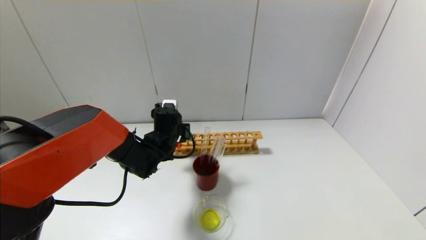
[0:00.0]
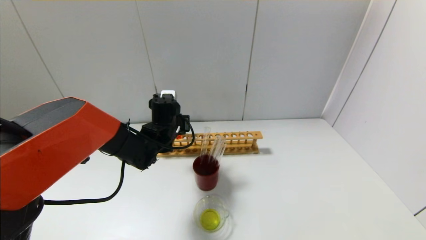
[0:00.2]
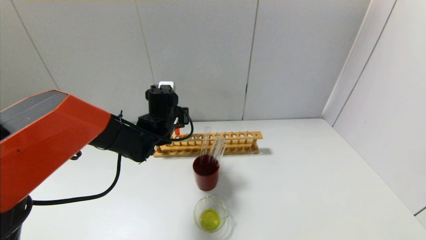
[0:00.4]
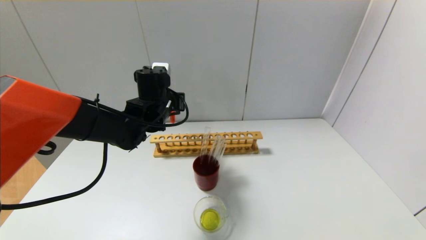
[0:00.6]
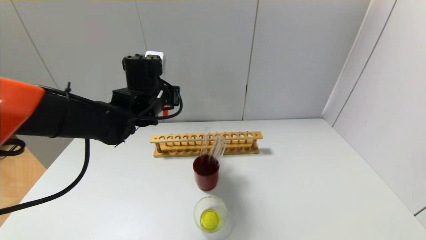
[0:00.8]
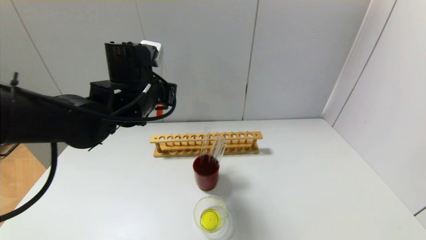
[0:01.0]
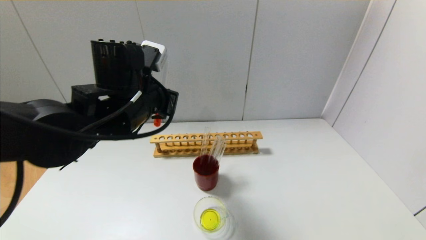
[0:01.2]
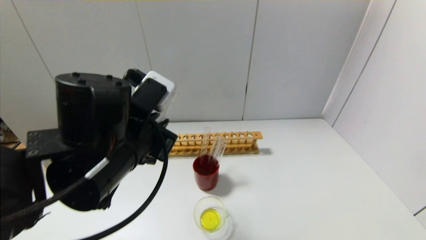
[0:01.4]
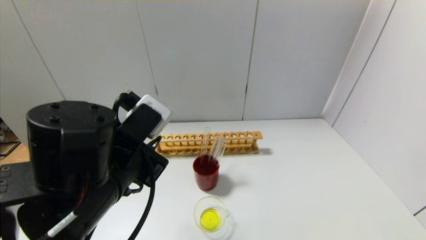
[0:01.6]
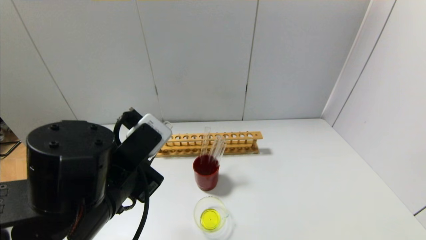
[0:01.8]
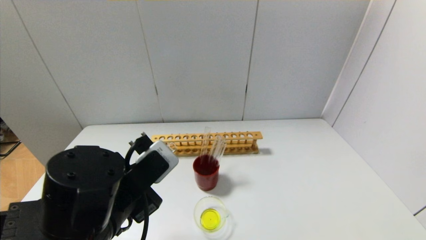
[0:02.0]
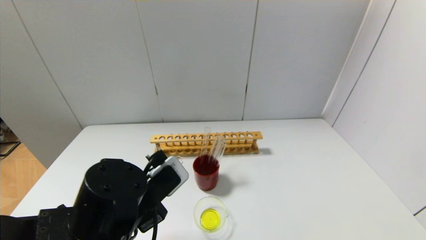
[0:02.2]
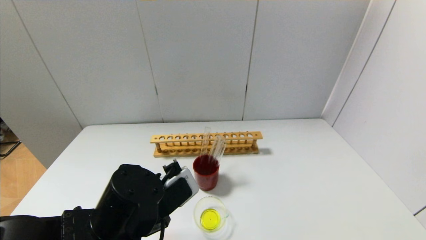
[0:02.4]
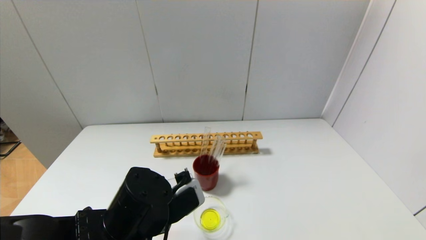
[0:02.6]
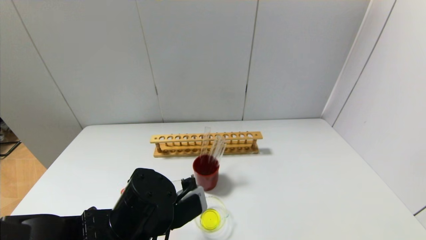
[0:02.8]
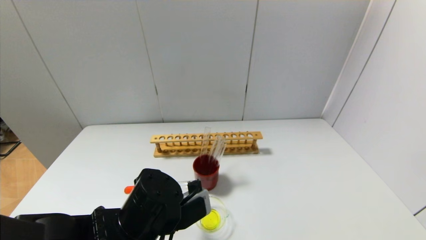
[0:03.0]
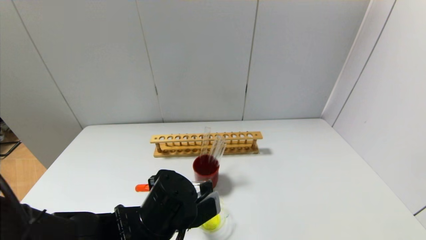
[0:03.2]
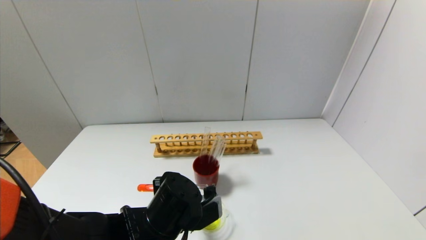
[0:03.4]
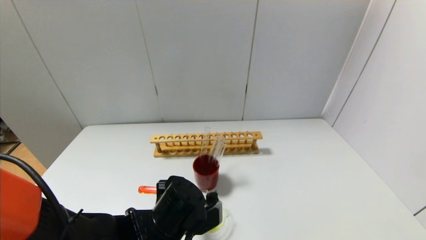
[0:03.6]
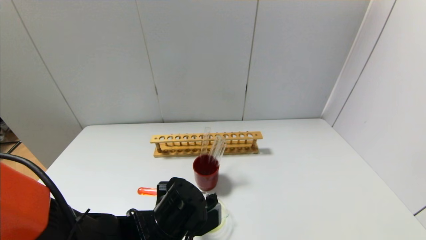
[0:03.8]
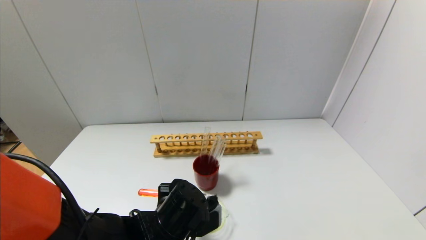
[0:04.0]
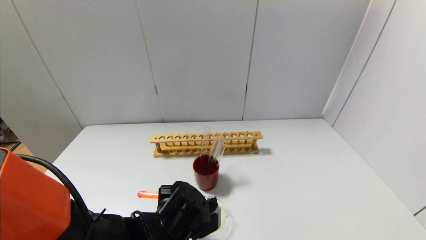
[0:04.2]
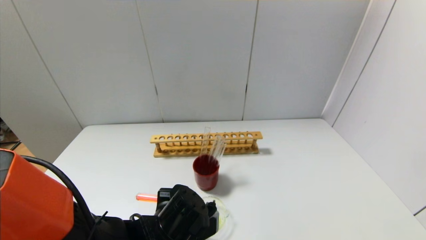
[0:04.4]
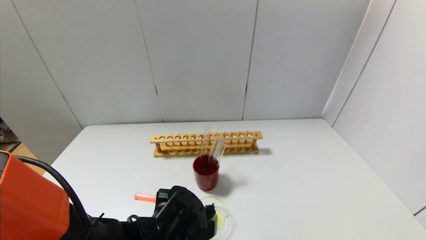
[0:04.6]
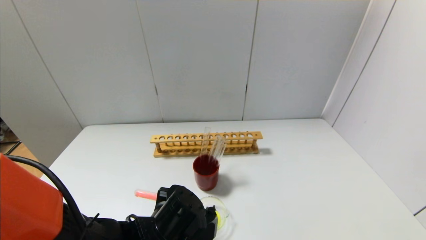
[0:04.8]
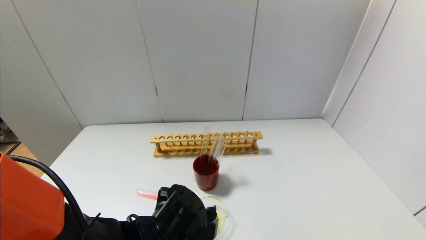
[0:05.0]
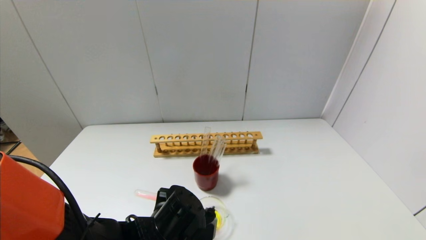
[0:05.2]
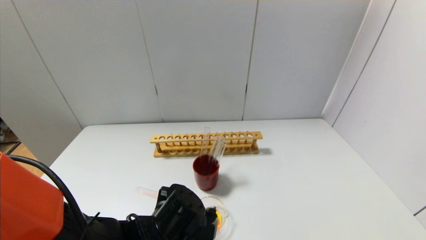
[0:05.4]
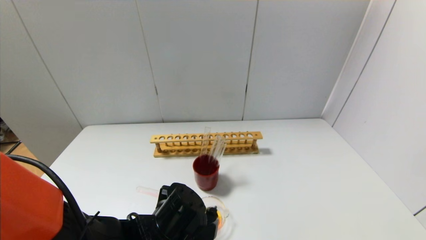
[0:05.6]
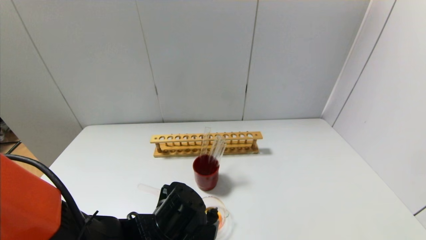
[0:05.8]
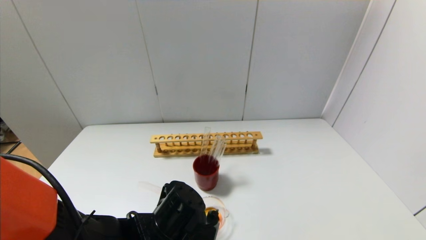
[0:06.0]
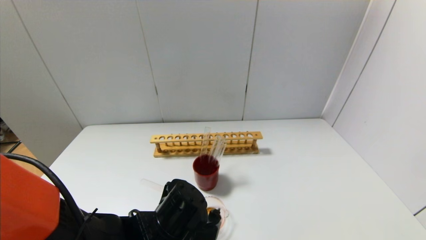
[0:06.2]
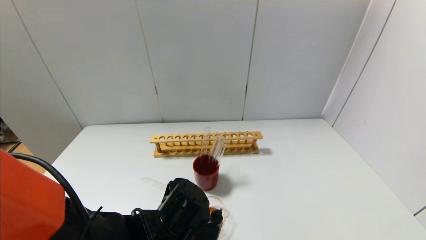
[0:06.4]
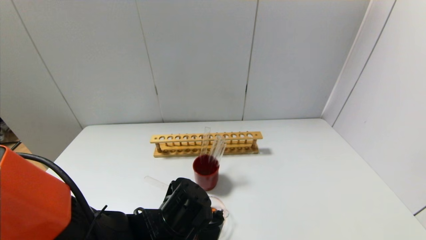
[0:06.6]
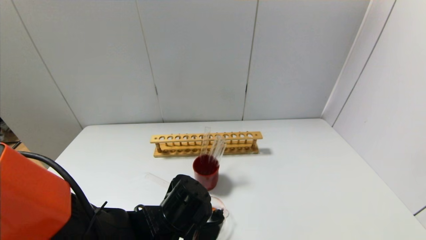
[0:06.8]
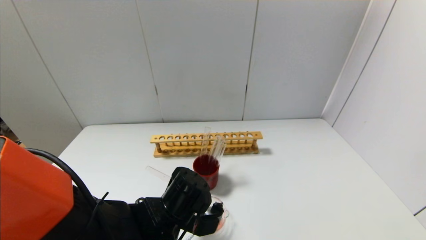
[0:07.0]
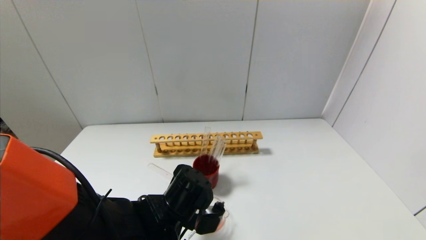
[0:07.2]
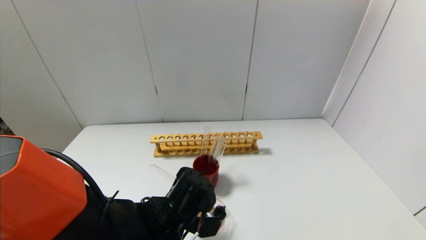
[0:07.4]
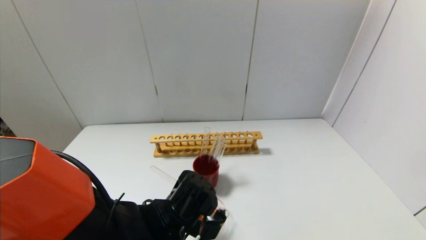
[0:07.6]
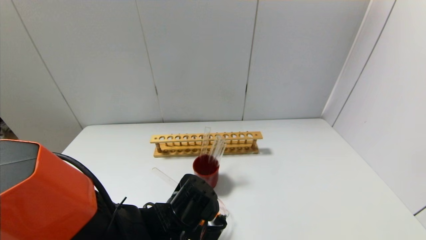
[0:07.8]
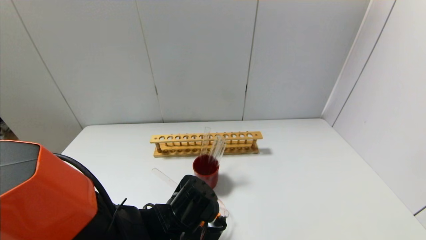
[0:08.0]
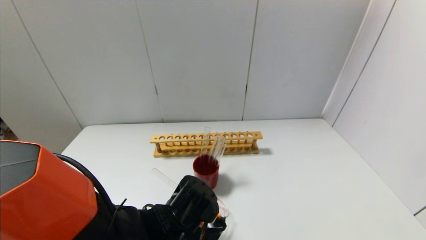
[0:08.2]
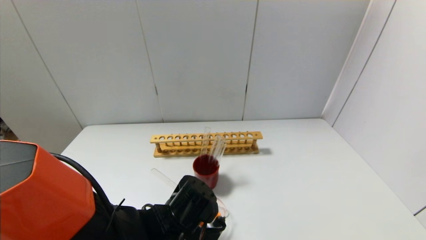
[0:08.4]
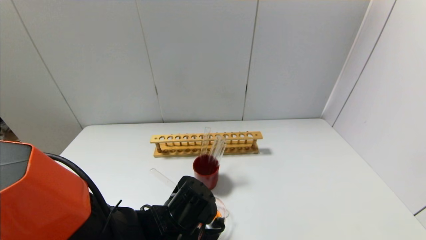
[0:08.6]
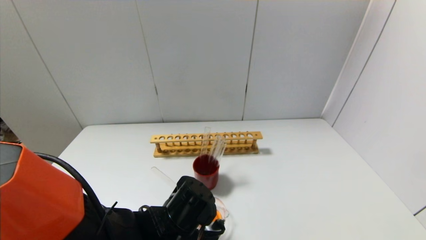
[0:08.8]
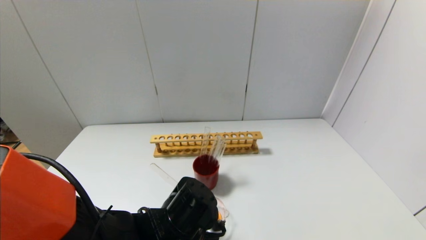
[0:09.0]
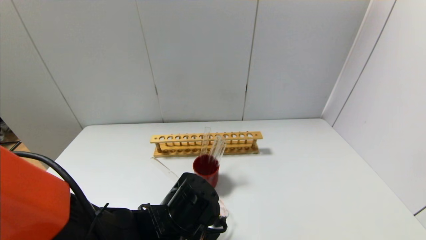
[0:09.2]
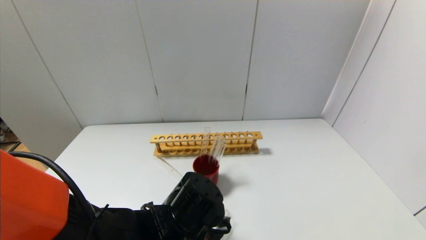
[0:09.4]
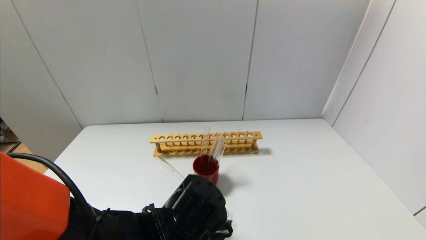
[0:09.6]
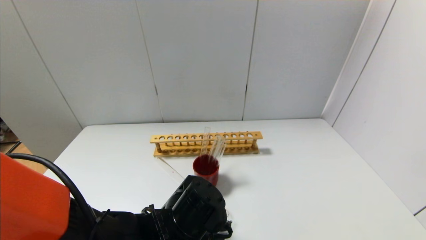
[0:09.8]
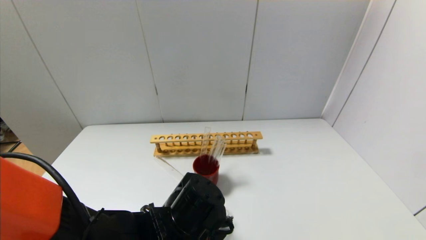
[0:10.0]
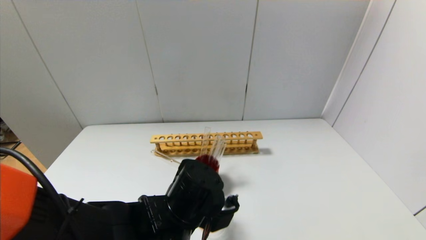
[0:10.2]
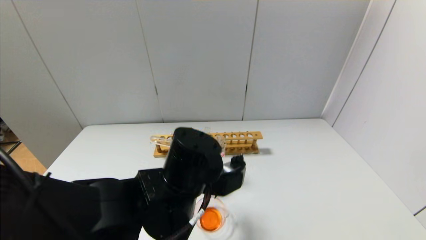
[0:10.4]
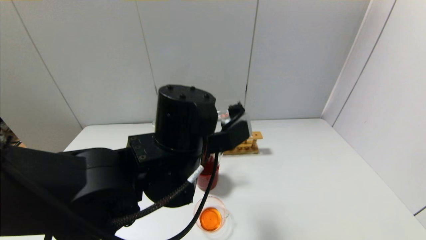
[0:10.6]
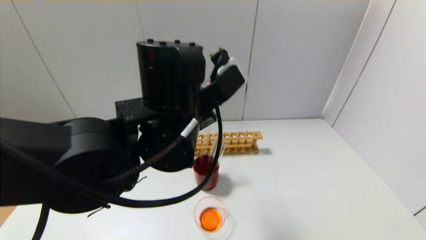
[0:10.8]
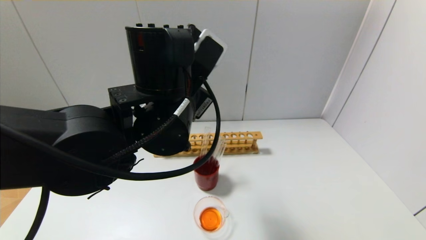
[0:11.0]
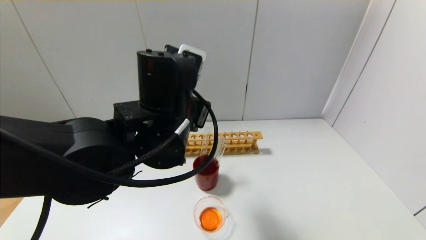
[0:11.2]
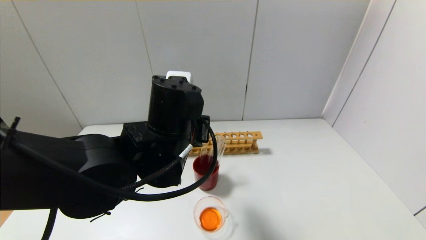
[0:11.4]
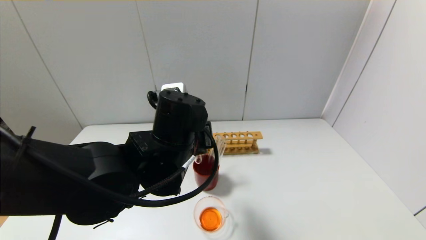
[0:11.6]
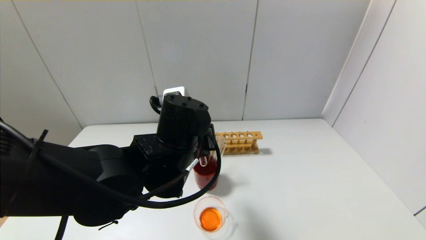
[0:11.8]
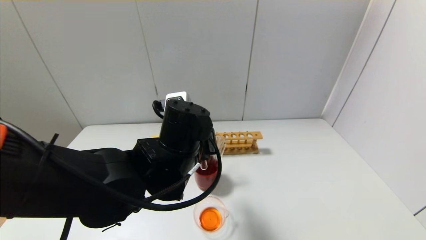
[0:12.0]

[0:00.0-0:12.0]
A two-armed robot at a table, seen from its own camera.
Step, 0:00.0 to 0:10.0: Pour the red reagent into the graduated cylinder with the left gripper.
0:00.0 to 0:01.6: The left gripper goes about 25 cm backward and upward.
0:01.6 to 0:03.0: The left gripper goes some 10 cm downward.
0:03.0 to 0:04.4: The left gripper goes approximately 5 cm downward.
0:04.4 to 0:06.0: There are only small adjustments of the grippers.
0:06.0 to 0:07.6: There are only small adjustments of the grippers.
0:07.6 to 0:09.0: The grippers make only small movements.
0:09.0 to 0:10.4: The left gripper moves upward, roughly 10 cm.
0:10.4 to 0:12.0: The left gripper moves about 10 cm upward and comes back.

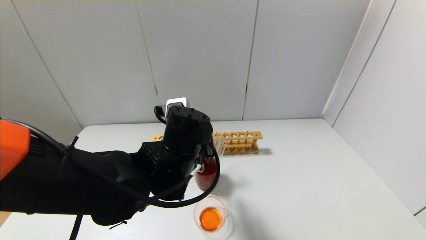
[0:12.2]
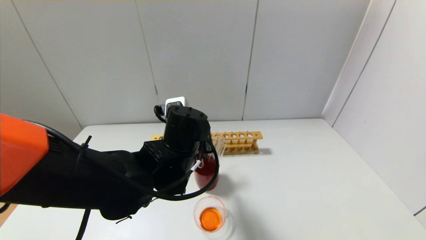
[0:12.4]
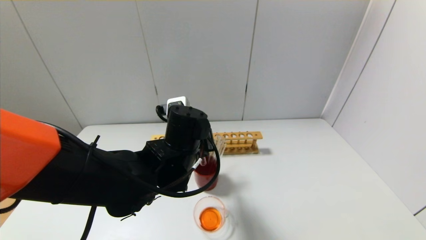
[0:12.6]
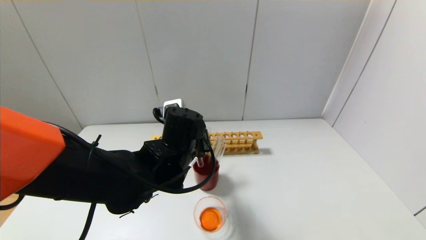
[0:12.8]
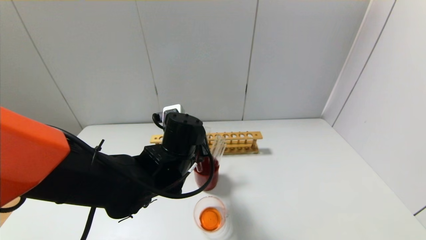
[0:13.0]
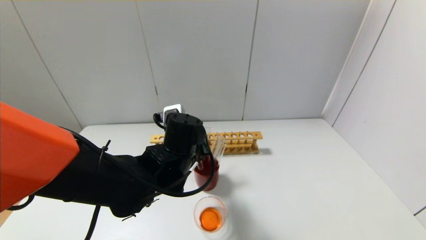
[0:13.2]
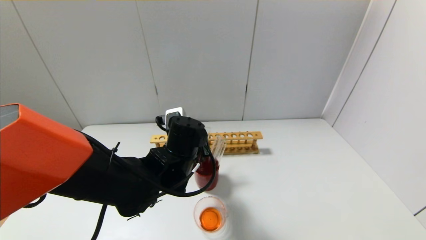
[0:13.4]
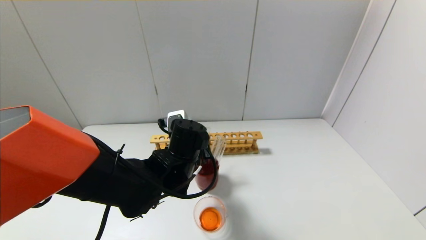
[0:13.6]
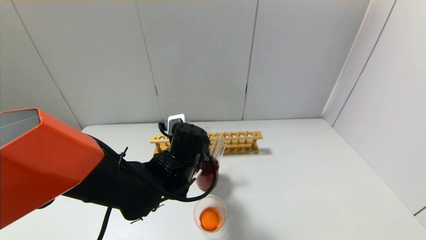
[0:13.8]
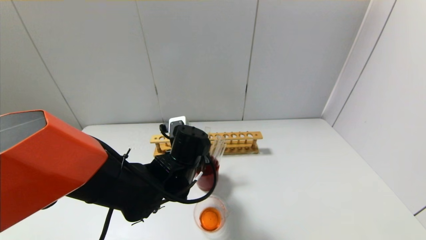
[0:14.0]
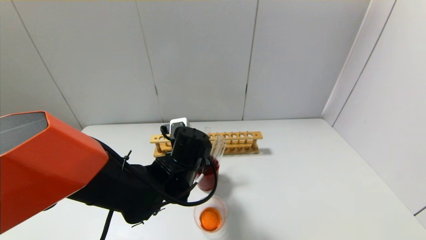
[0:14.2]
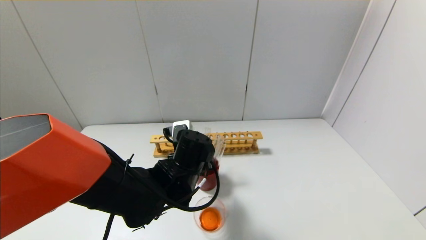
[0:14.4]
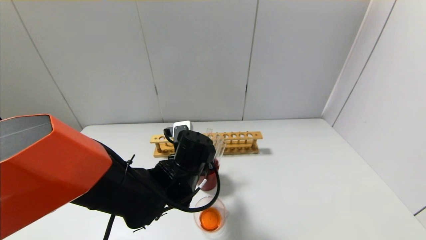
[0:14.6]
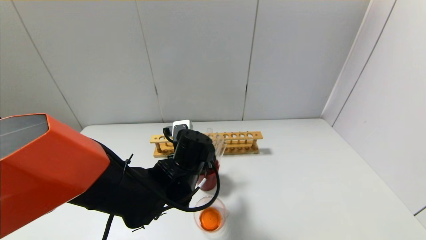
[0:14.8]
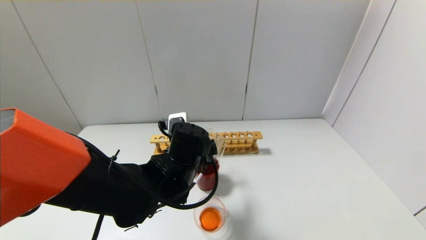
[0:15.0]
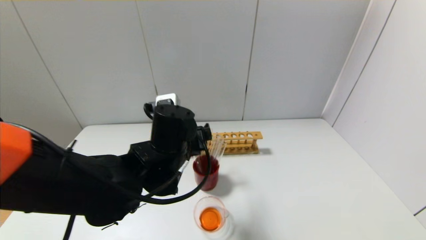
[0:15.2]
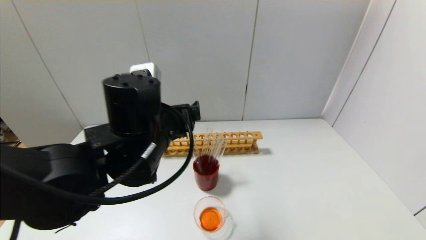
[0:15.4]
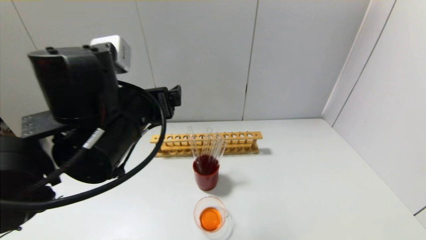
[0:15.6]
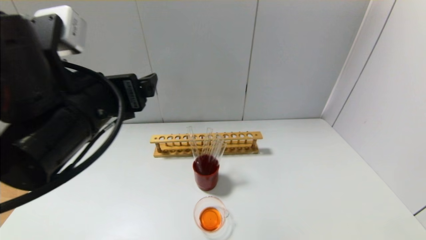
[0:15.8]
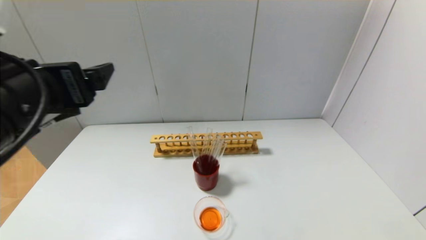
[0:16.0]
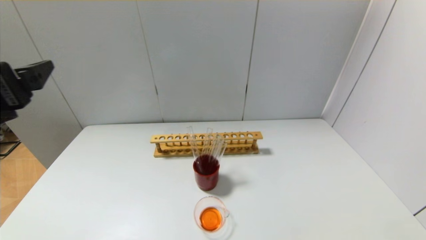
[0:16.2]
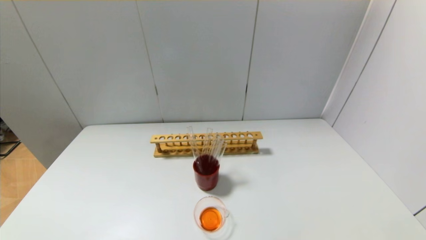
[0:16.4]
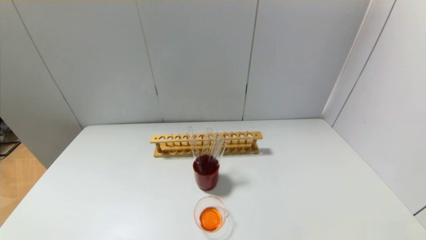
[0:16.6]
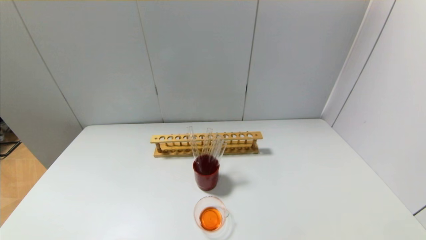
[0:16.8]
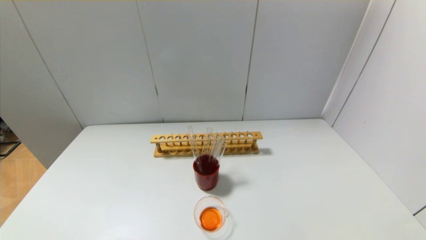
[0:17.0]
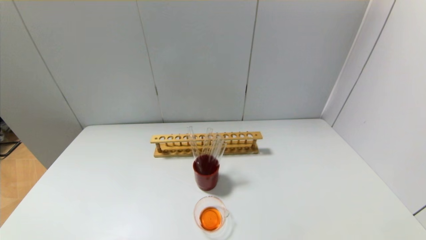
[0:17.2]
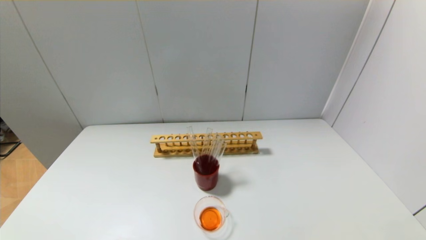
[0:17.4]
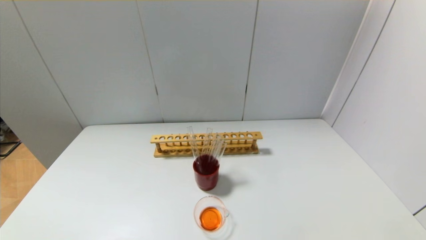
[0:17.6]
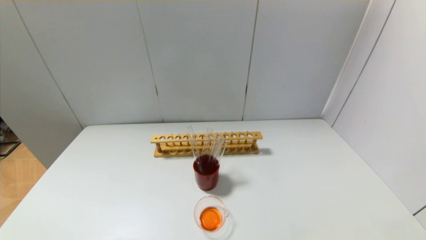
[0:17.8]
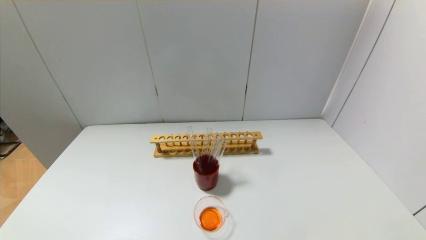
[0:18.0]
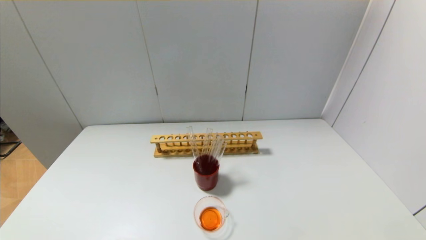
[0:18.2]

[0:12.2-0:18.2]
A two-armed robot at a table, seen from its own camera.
Step, 0:12.2 to 0:14.6: Place the test tube into the brown cup with the left gripper.
0:12.2 to 0:13.8: The left gripper goes about 5 cm downward.
0:13.8 to 0:15.2: The left gripper moves upward, roughly 5 cm, and opens up.
0:15.2 to 0:16.6: The left gripper shifts roughly 35 cm to the left, backward and upward.
